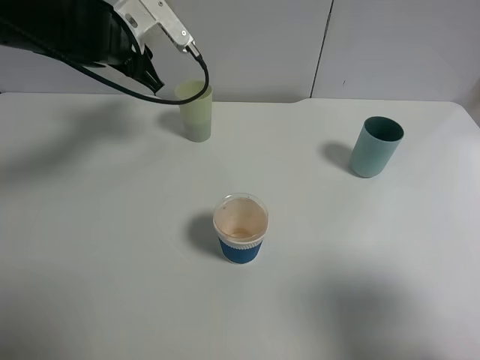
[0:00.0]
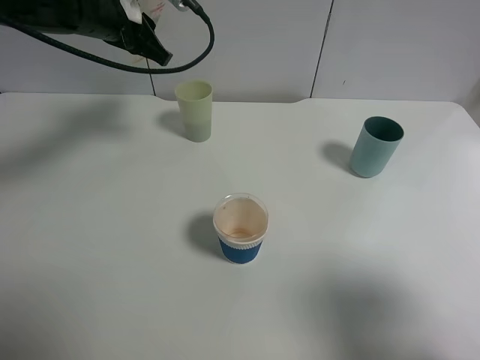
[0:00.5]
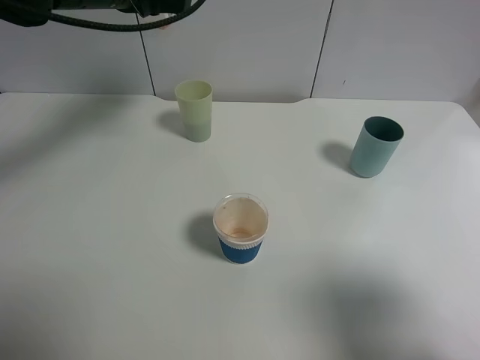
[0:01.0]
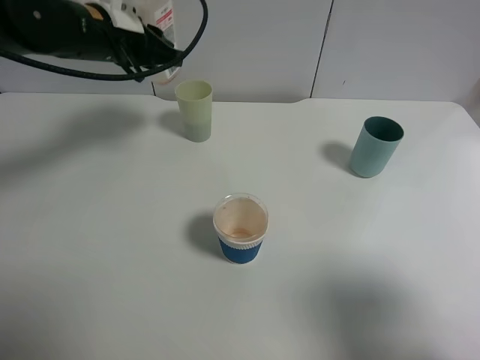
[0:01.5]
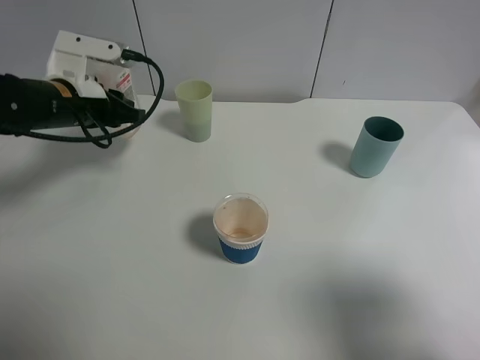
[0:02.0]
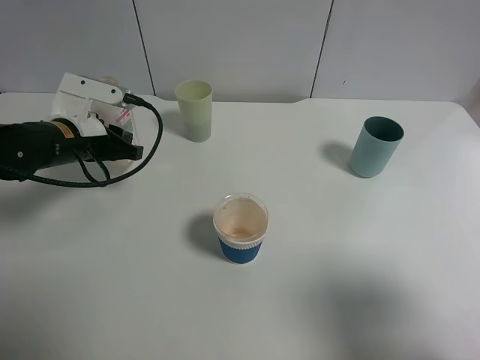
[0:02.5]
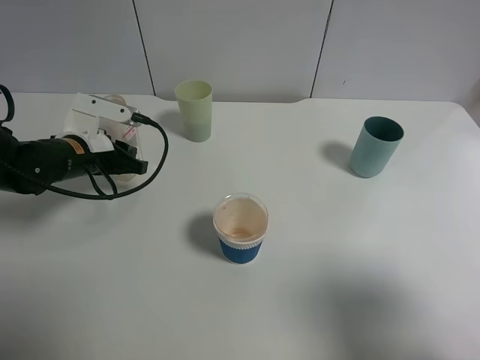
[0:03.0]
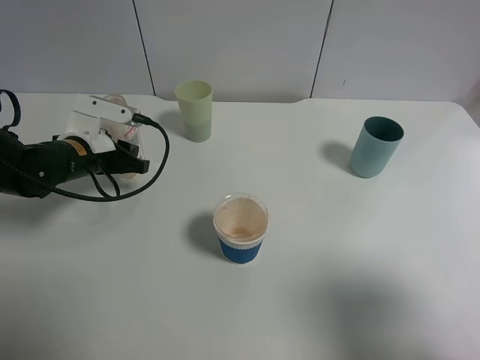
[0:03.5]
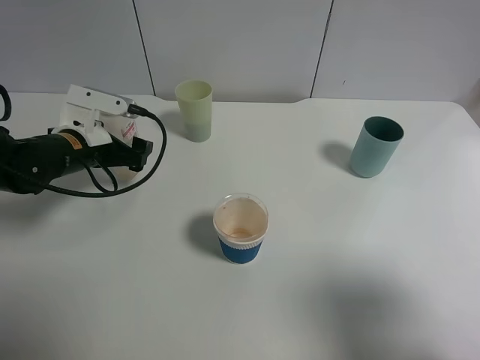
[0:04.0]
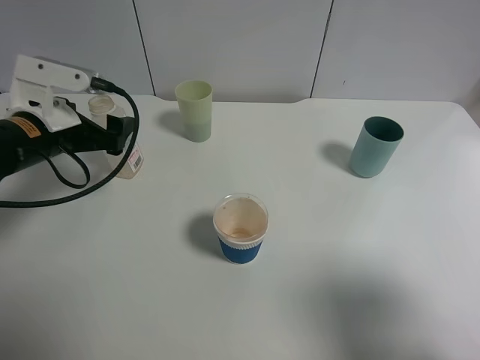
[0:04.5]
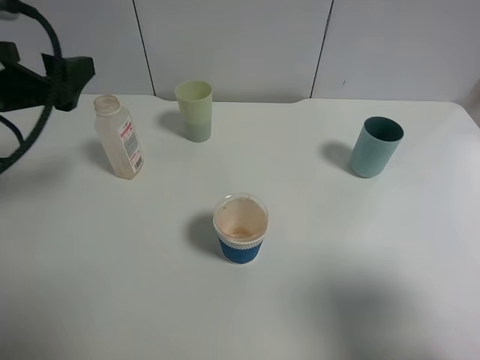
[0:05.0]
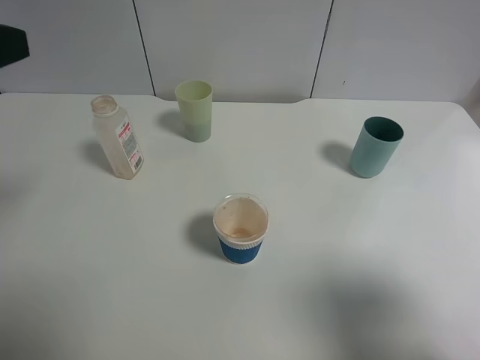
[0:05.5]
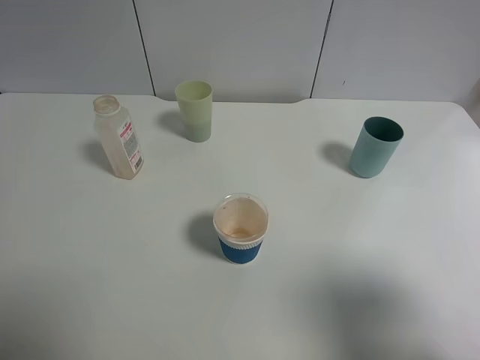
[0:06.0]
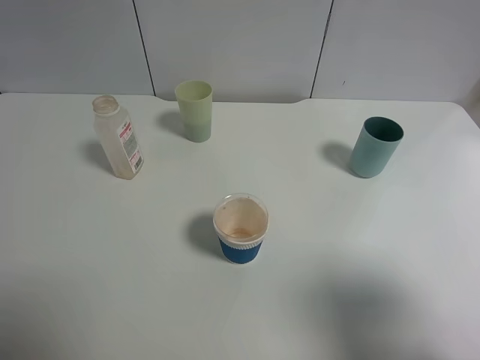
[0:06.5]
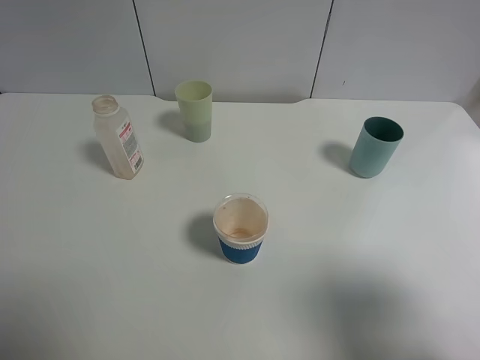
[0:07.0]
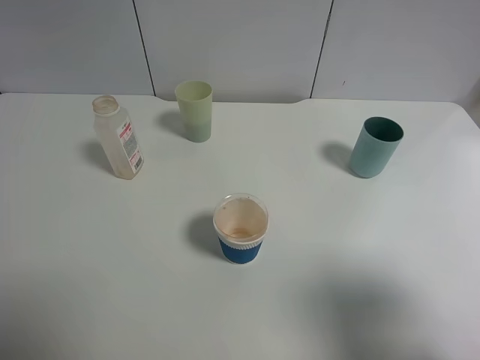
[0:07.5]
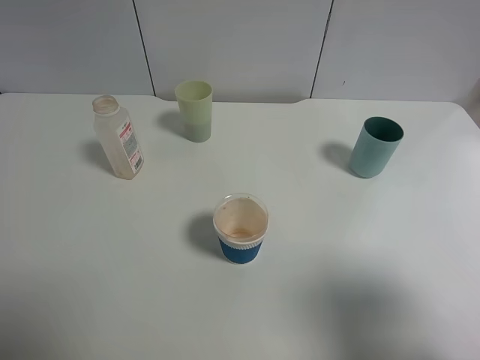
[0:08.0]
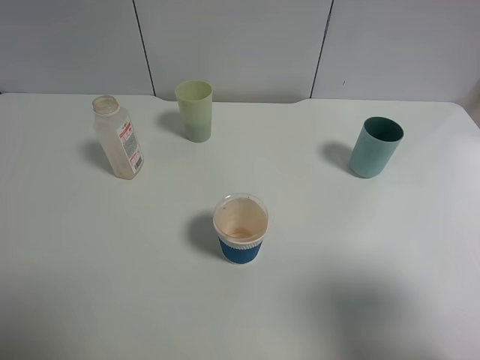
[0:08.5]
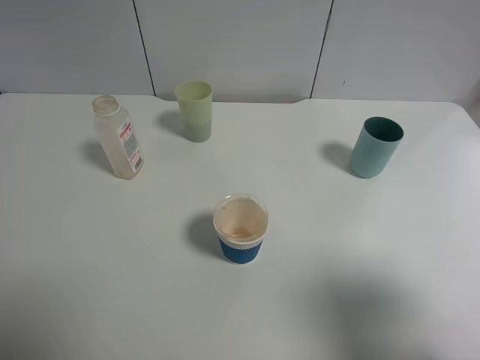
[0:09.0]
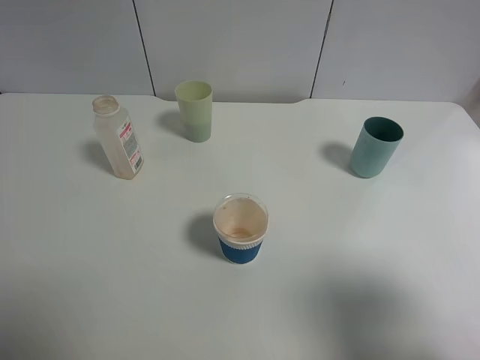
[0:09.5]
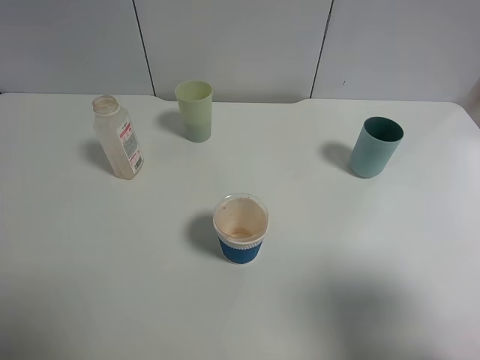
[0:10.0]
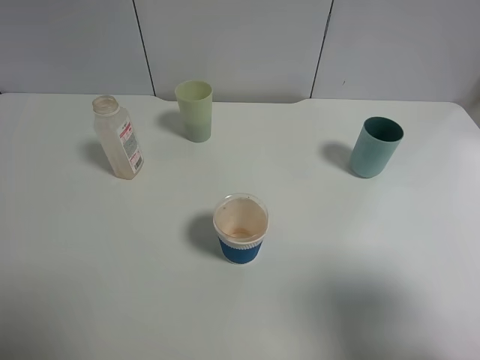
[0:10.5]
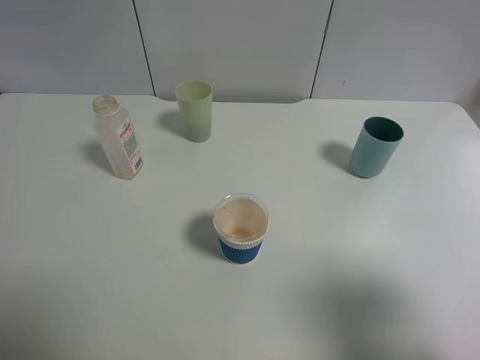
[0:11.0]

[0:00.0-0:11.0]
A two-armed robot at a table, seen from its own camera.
Task of the whole recording: use a gripper to hold the bottle of the drink and pour it into a random cup.
Step, 0:00.0 to 0:03.5: Place the cranberry juice bottle on the table with the left gripper.
0:00.0 to 0:02.0: The left gripper moves backward, downward and to the left, some 10 cm.
0:02.0 to 0:03.5: The left gripper is displaced downward by some 5 cm.
0:03.5 to 0:05.5: The left gripper travels upward and backward by approximately 30 cm, and opens up.
0:05.5 to 0:07.5: The left gripper is displaced backward by about 20 cm.
0:09.0 to 0:11.0: The two grippers keep their place.

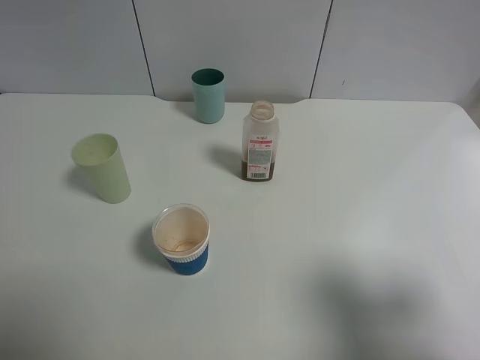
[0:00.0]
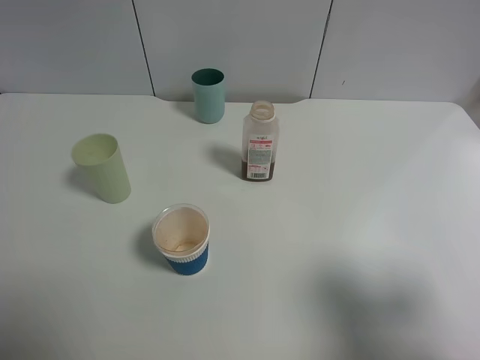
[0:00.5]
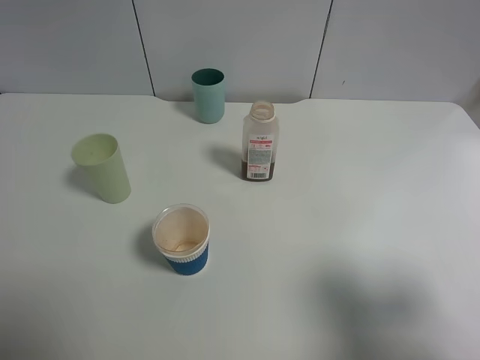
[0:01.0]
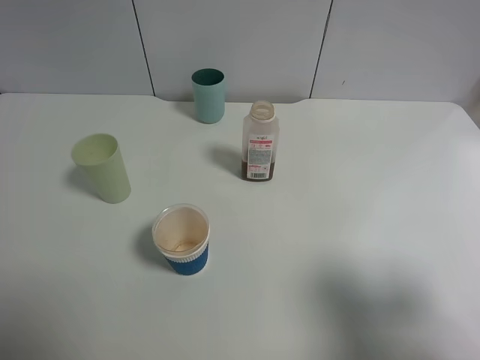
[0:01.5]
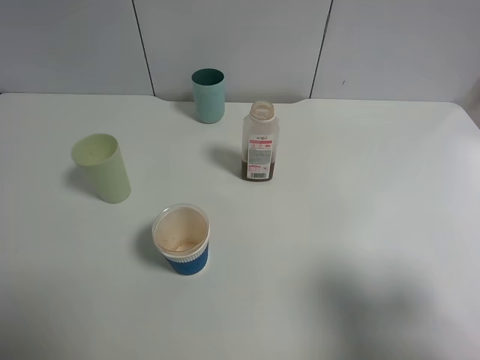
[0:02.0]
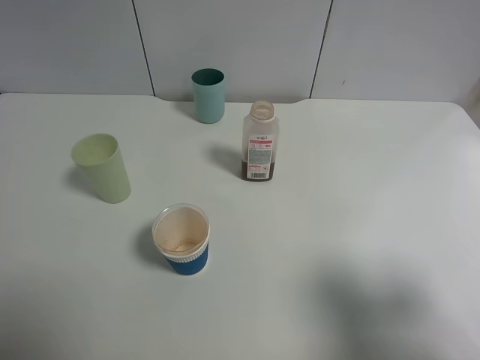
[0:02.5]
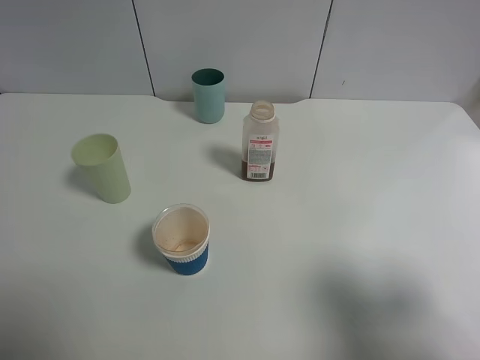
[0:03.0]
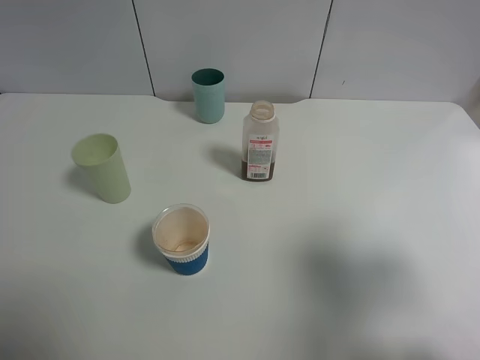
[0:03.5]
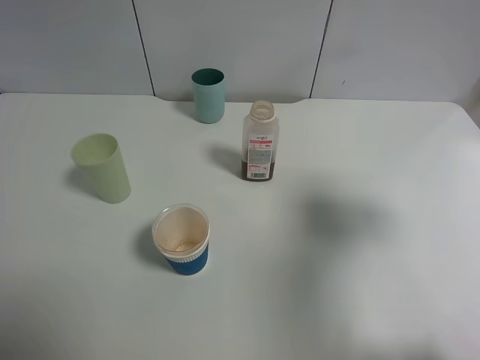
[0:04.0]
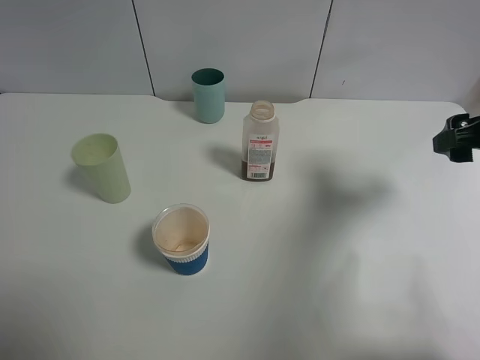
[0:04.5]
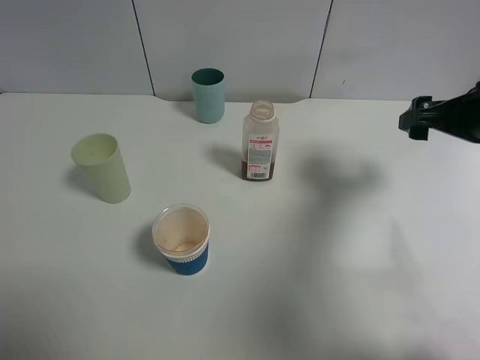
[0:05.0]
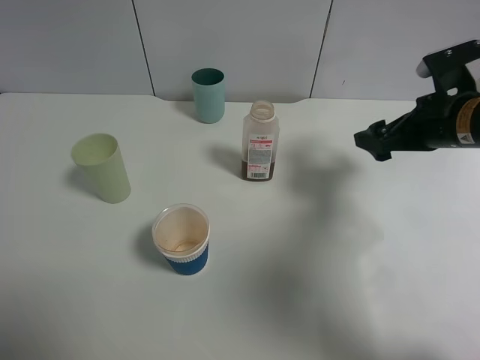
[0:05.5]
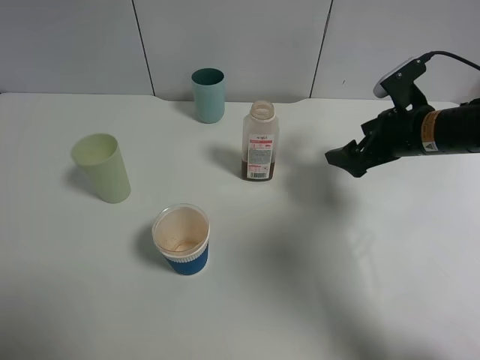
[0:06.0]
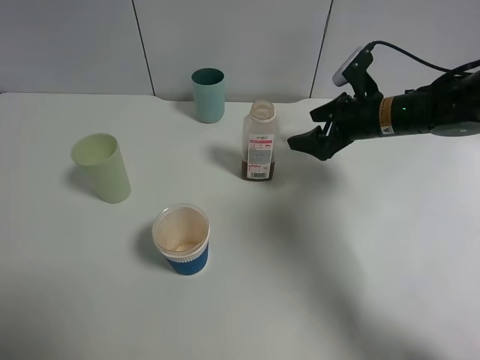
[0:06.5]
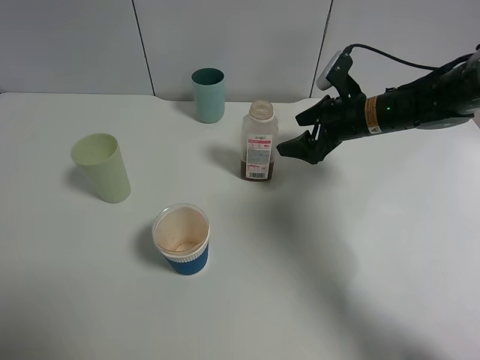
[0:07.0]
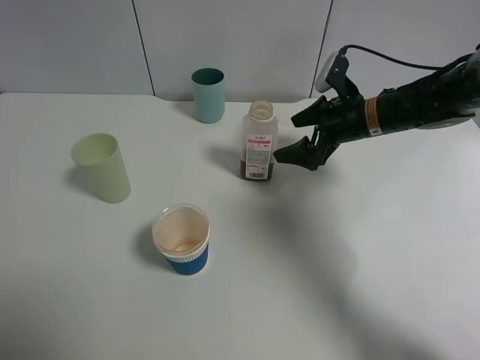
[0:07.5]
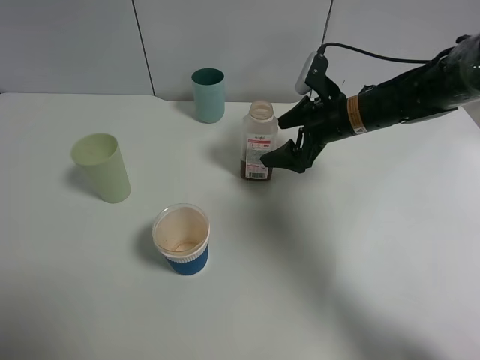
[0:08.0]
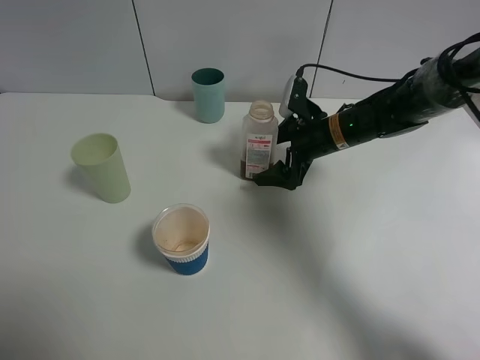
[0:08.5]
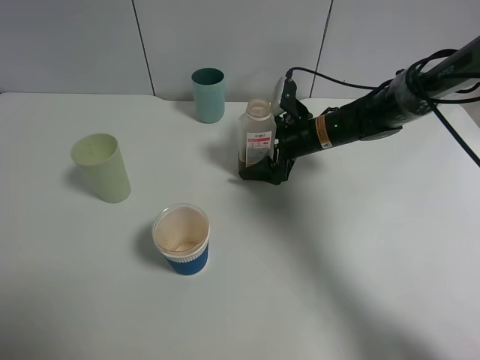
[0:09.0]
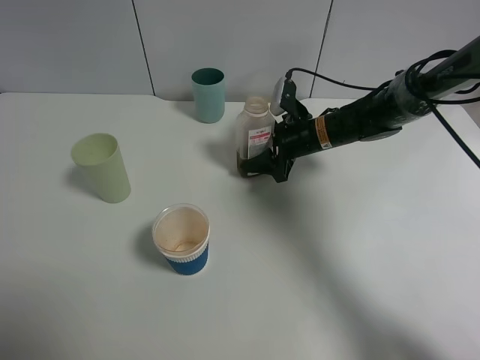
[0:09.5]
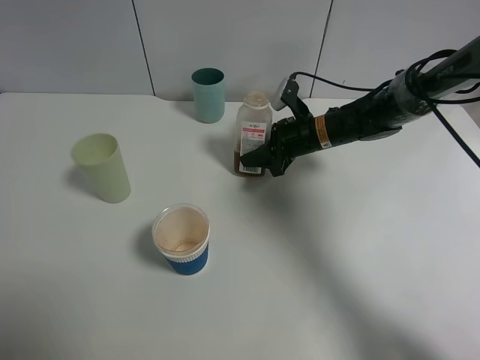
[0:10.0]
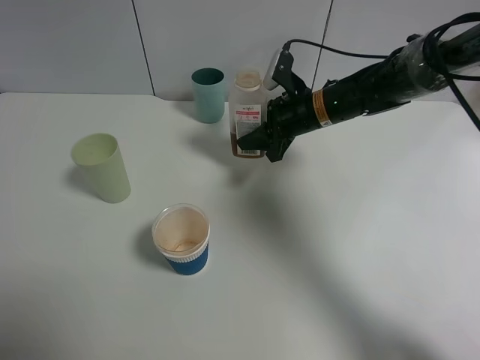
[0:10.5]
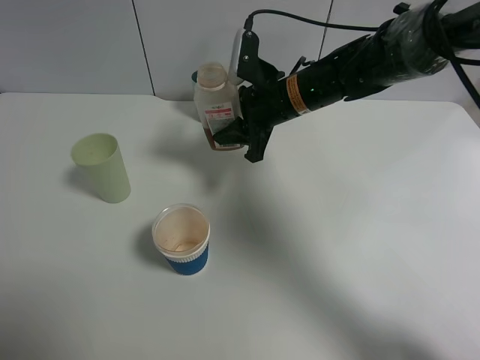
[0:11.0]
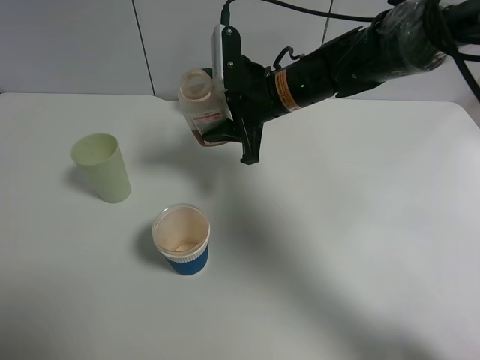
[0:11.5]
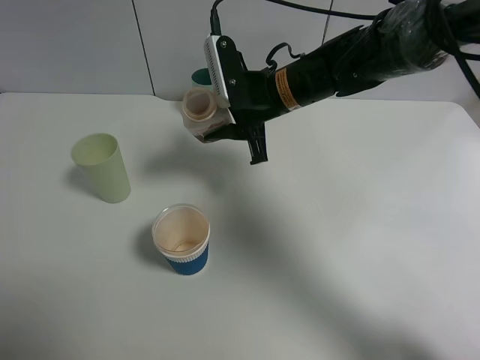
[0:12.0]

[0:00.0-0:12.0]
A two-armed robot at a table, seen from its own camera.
Task of the whole recording: use a gripper to hold the bottle of the drink and pour it into a random cup.
Step, 0:00.0 to 0:10.0: Grasp the cranberry juice bottle with the right gripper.
0:00.0 to 0:02.0: Both grippers stay about where they are.
0:02.0 to 0:04.0: The right gripper goes some 15 cm forward.
0:04.0 to 0:06.0: The right gripper moves forward and downward, roughly 20 cm.
0:06.0 to 0:08.0: The right gripper shifts about 10 cm to the left and forward.
0:08.0 to 0:10.0: The right gripper travels downward by some 5 cm, and closes its fingers.
0:10.0 to 0:12.0: The right gripper goes roughly 15 cm upward and to the left.

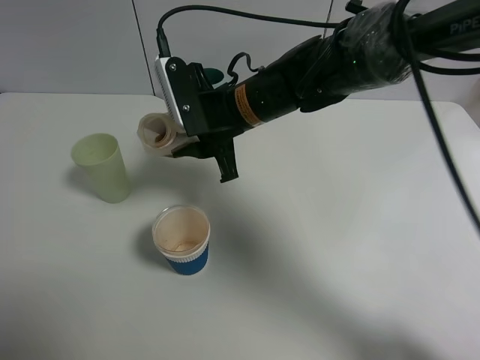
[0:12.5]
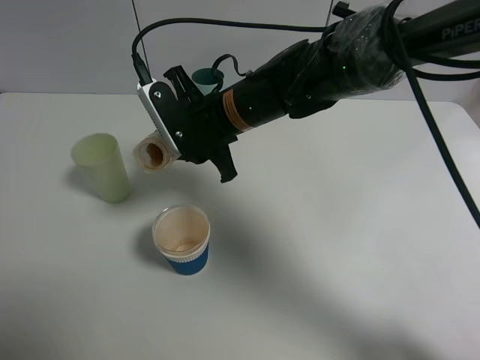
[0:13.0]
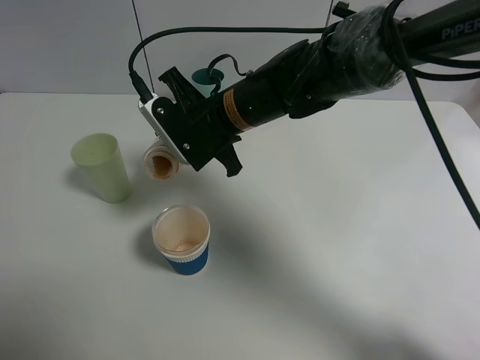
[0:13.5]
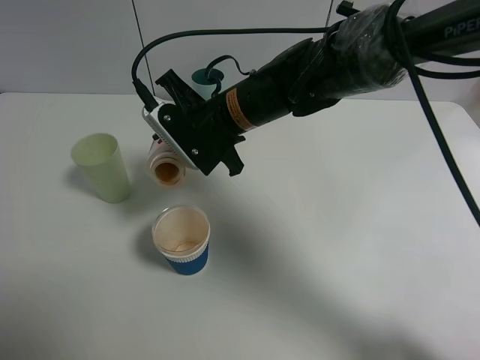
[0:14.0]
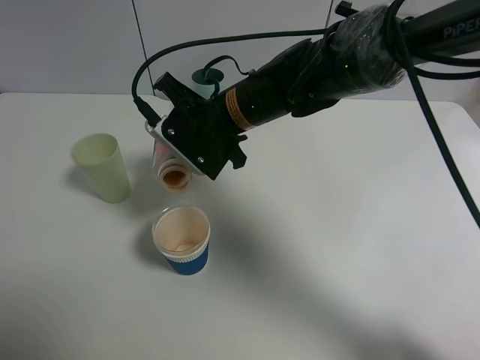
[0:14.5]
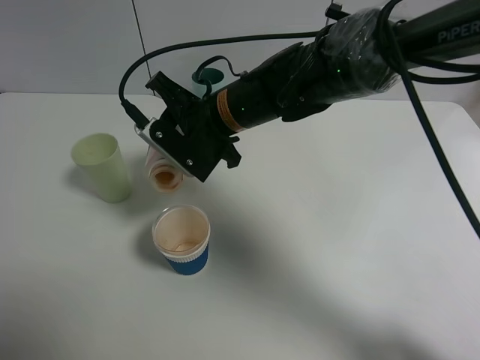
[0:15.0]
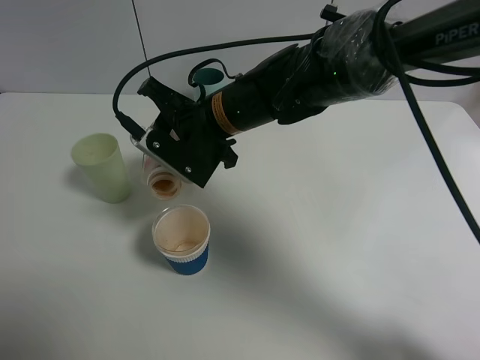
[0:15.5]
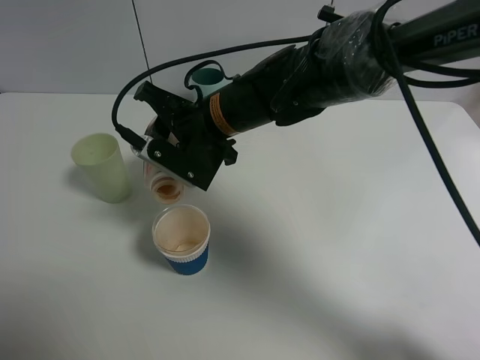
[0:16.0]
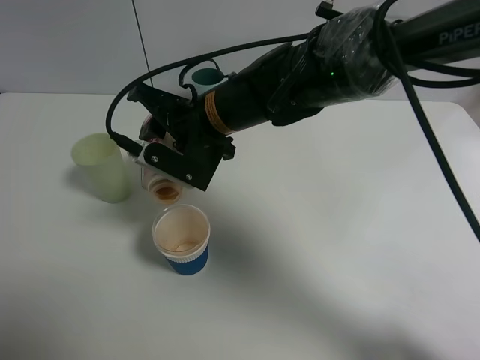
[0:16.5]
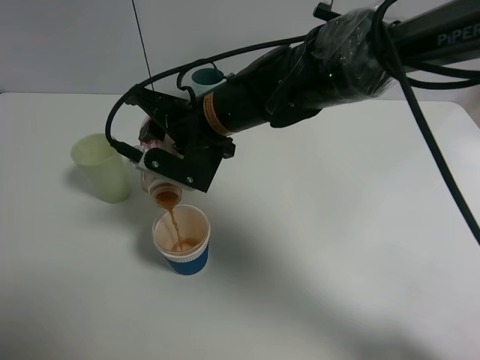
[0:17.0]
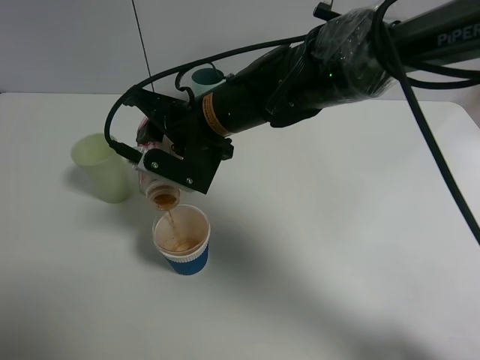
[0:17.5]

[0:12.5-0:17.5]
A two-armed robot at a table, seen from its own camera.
Task of the whole recording: use a gripper to hold the bottle of the drink and pour it into a random cup.
0:15.0 to 0:17.5: There are only small adjustments of the grippers.
